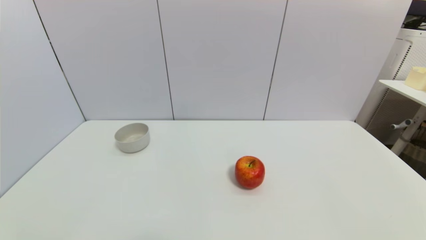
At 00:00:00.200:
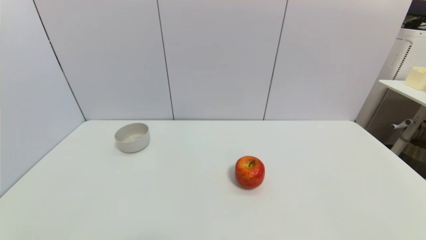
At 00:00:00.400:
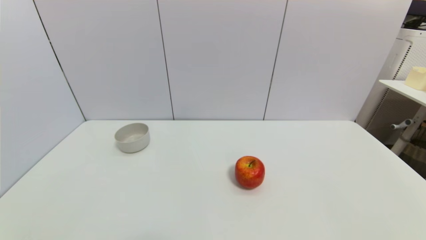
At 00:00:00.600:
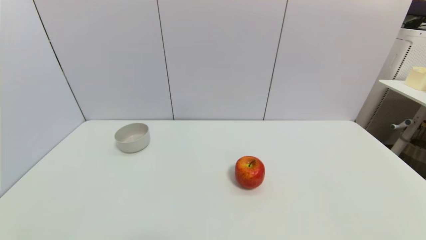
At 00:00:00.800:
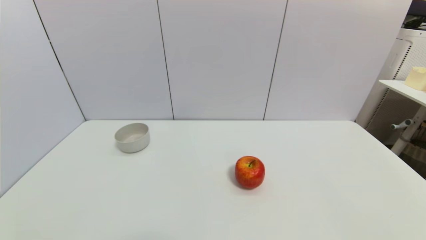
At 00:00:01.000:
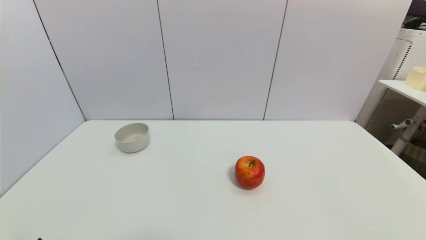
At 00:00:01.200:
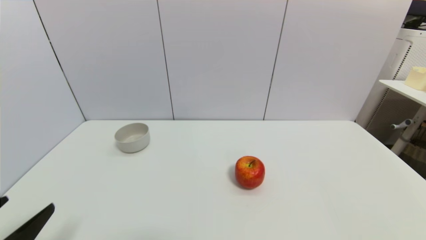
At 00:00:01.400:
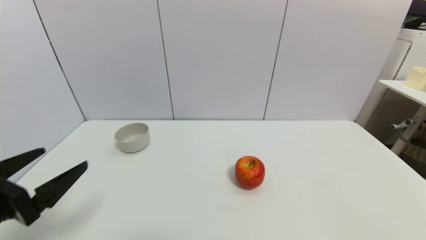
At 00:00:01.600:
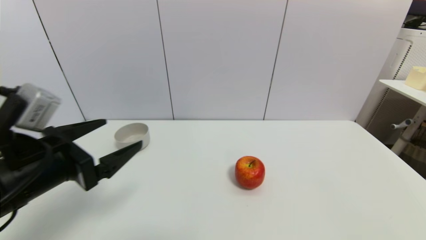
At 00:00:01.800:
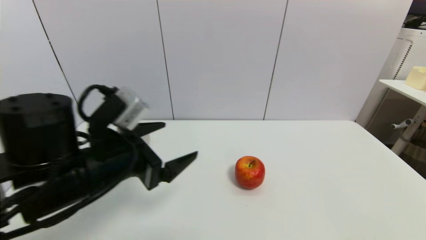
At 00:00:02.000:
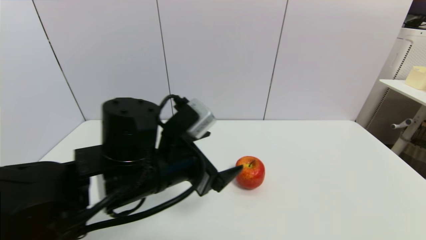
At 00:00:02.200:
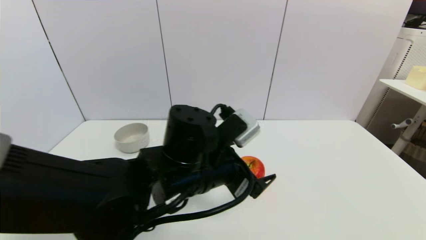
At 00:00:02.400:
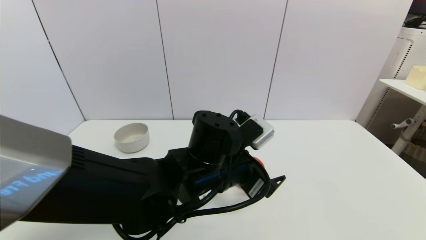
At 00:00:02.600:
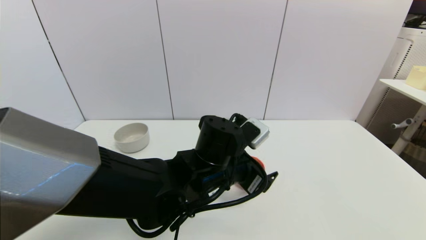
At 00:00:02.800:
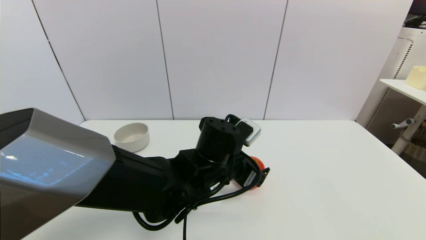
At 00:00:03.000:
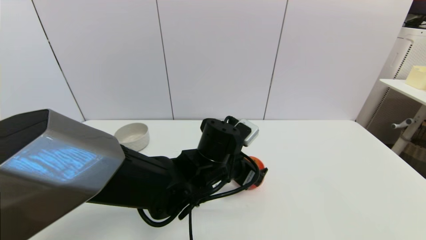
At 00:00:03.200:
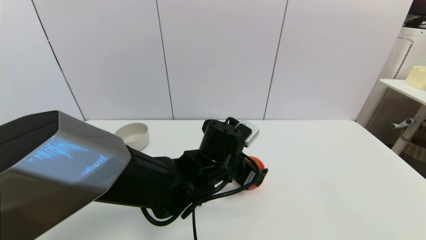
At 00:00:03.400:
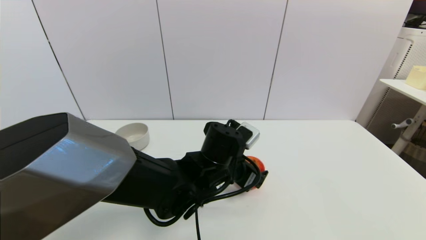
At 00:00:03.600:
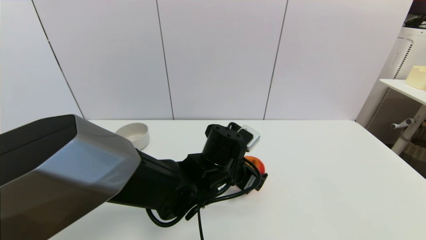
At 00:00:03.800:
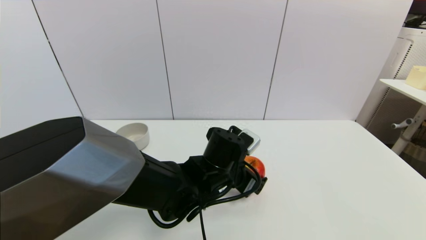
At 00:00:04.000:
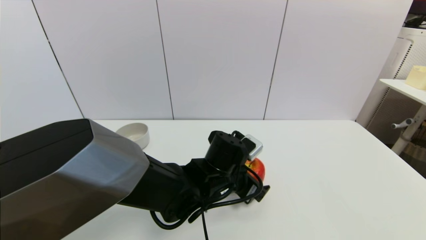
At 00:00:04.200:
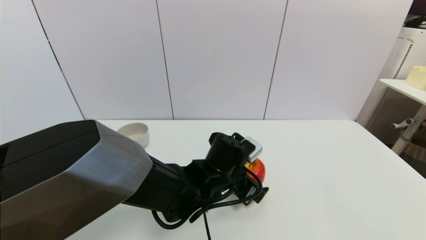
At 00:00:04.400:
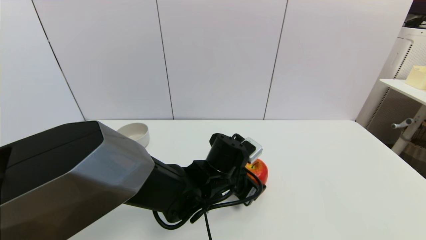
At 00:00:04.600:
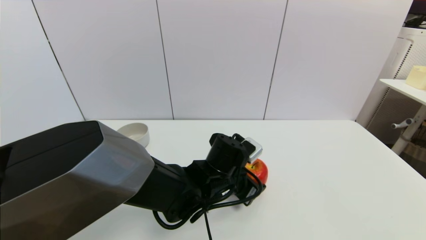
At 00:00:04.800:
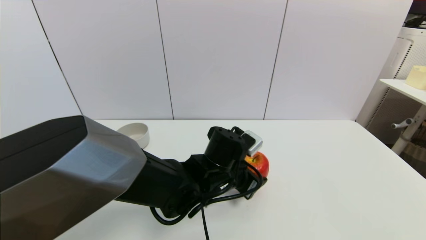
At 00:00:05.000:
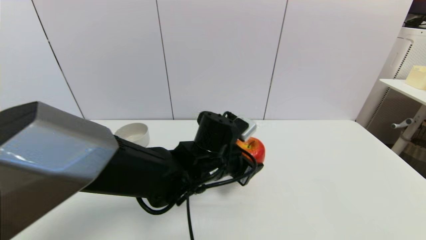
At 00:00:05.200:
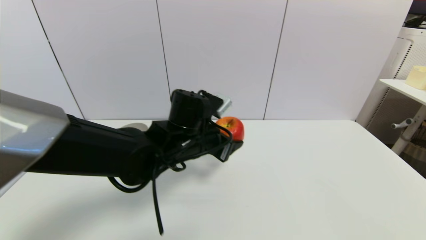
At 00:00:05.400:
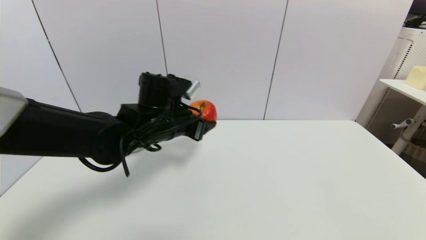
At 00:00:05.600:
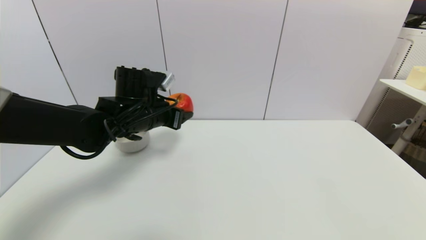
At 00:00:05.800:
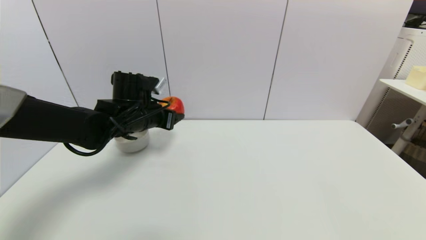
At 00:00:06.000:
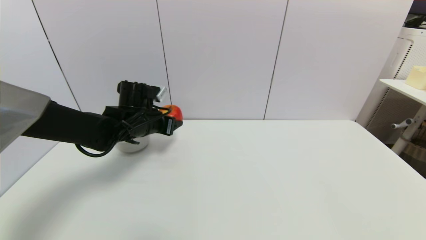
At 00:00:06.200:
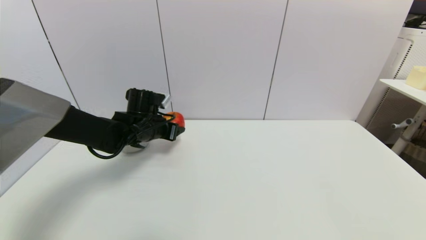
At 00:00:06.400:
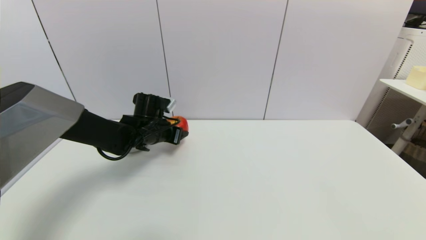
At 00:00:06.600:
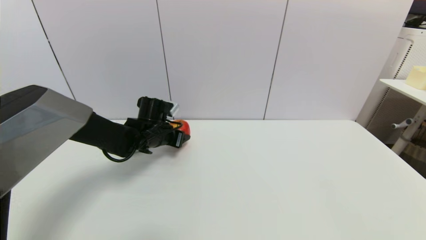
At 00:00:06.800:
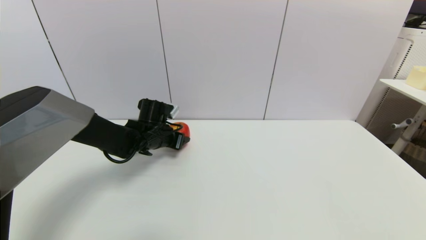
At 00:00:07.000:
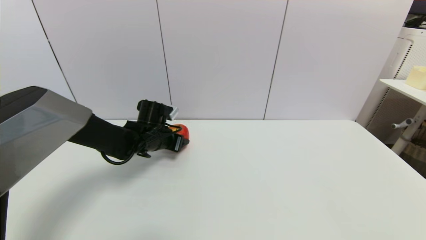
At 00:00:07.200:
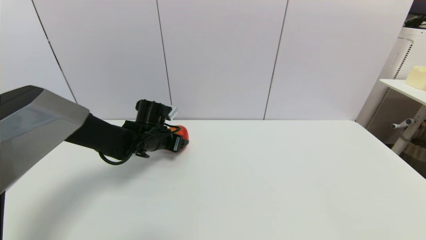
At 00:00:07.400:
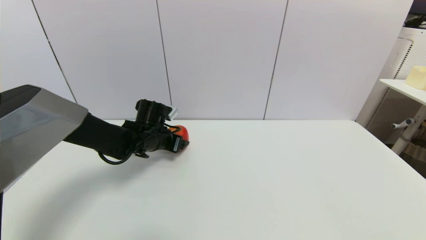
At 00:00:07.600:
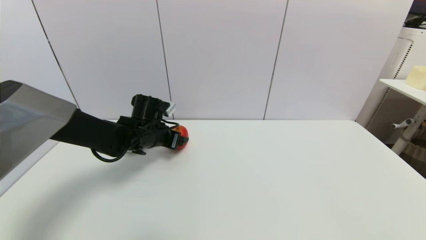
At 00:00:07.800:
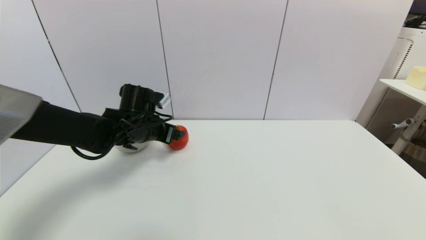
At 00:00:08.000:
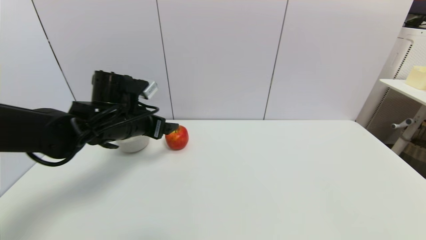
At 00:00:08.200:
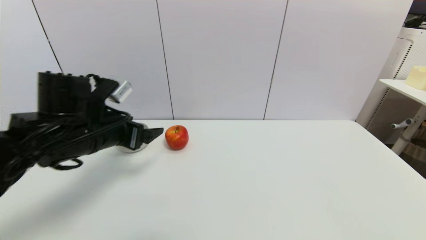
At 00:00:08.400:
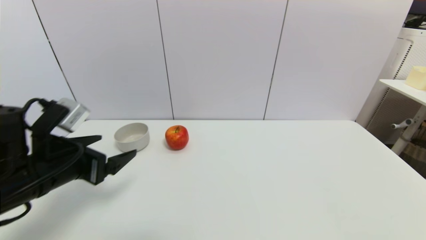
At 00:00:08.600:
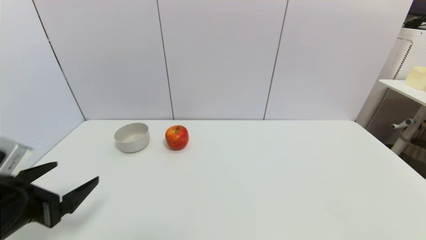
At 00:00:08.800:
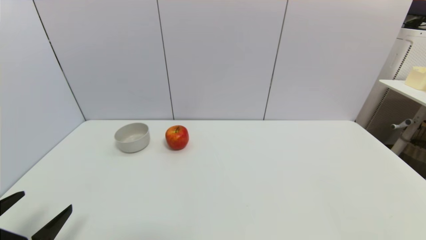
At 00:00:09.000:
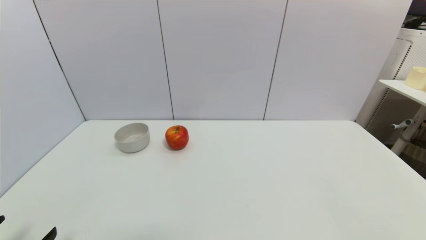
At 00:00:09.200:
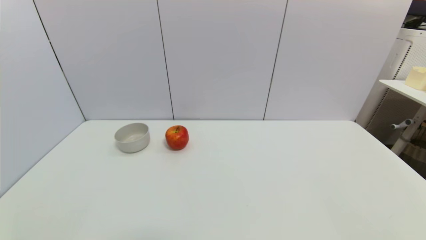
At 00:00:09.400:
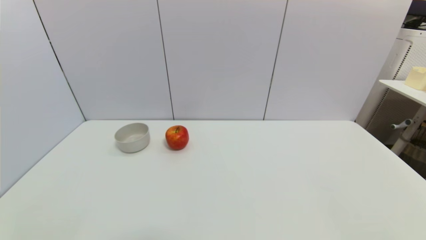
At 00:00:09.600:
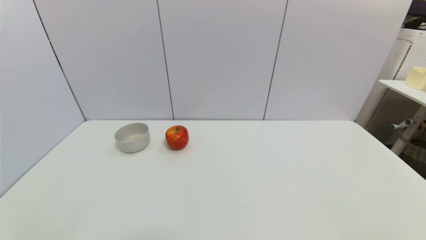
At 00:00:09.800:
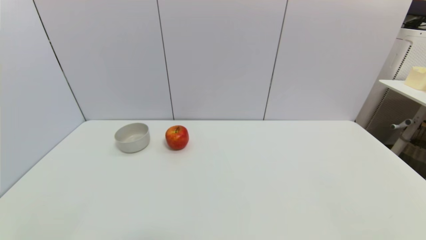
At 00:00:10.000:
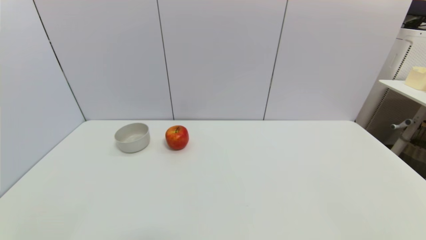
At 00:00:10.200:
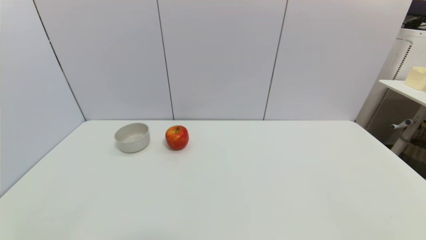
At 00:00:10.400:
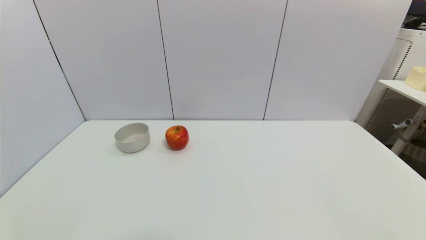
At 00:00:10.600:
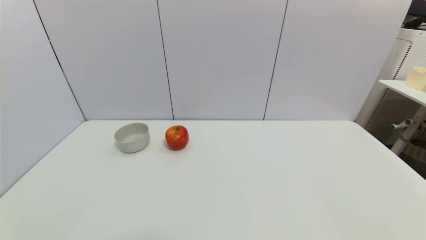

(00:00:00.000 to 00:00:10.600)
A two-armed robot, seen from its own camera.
Task of the whole recording: put the apple in the designated position.
Step, 00:00:01.200 - 00:00:04.800: Grasp the apple with left gripper.
Step, 00:00:05.000 - 00:00:08.000: Place the apple on the table with left gripper.
00:00:00.000 - 00:00:01.600: The left gripper travels forward, upward and to the right by approximately 25 cm.
00:00:01.600 - 00:00:03.000: The left gripper goes some 25 cm to the right and forward.
00:00:03.000 - 00:00:04.600: The left gripper closes up.
00:00:04.600 - 00:00:06.000: The left gripper moves to the left and forward, roughly 20 cm.
00:00:06.000 - 00:00:07.600: The left gripper opens its fingers.
00:00:07.600 - 00:00:09.000: The left gripper shifts roughly 35 cm backward and to the left.
